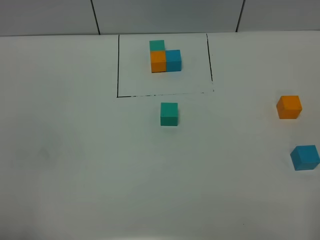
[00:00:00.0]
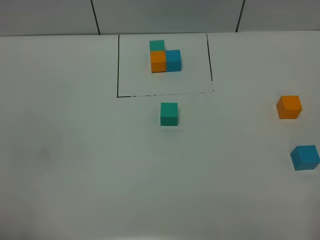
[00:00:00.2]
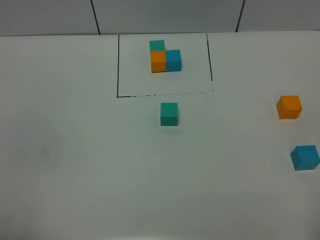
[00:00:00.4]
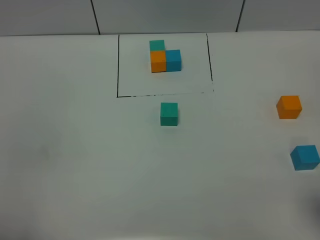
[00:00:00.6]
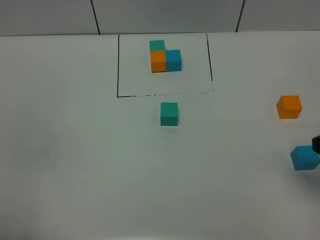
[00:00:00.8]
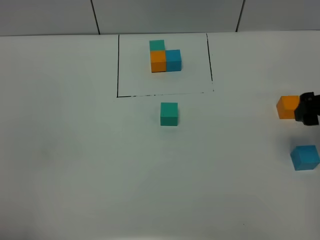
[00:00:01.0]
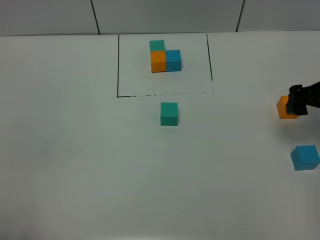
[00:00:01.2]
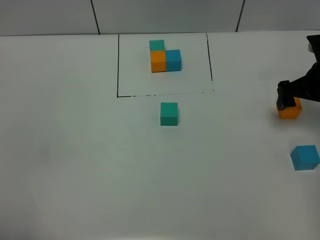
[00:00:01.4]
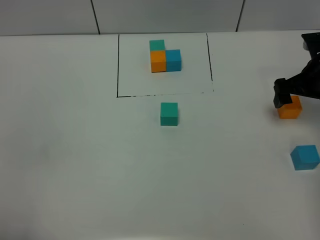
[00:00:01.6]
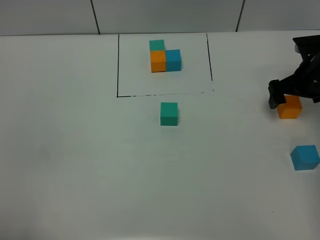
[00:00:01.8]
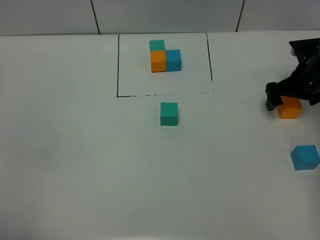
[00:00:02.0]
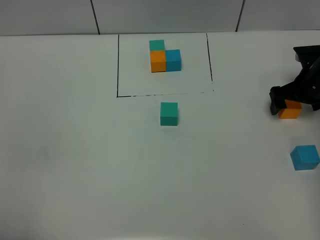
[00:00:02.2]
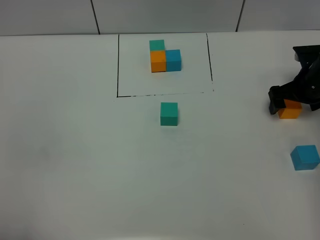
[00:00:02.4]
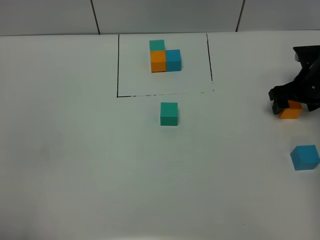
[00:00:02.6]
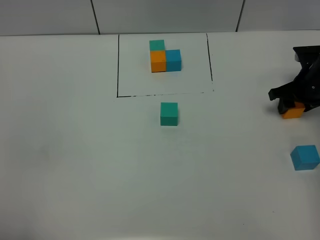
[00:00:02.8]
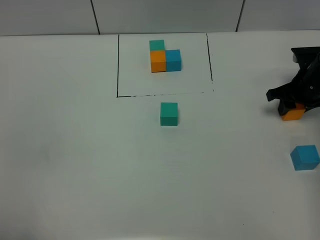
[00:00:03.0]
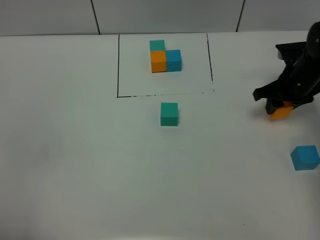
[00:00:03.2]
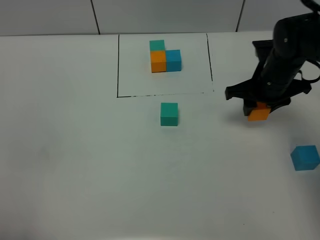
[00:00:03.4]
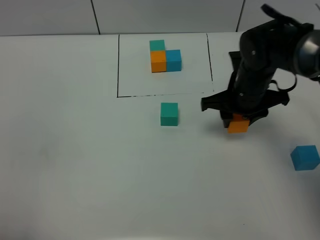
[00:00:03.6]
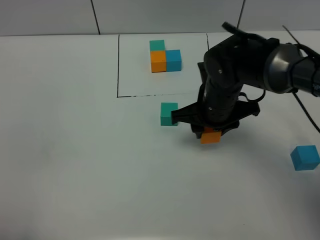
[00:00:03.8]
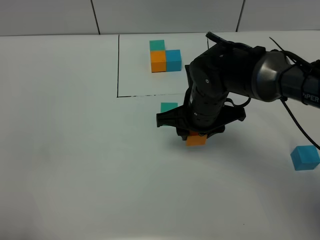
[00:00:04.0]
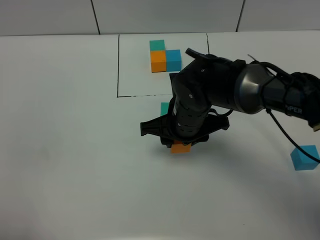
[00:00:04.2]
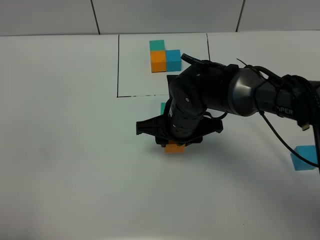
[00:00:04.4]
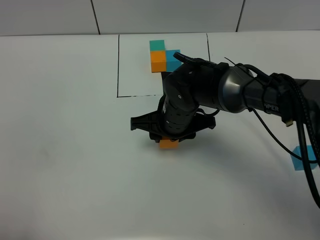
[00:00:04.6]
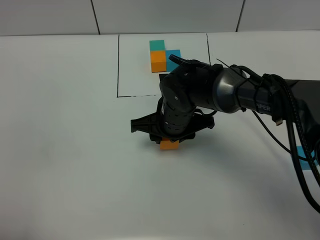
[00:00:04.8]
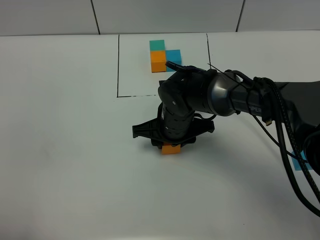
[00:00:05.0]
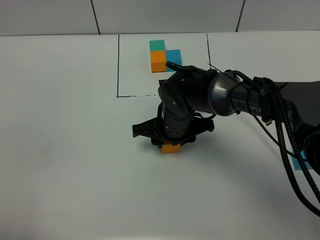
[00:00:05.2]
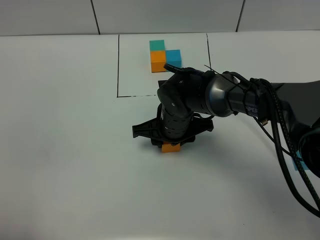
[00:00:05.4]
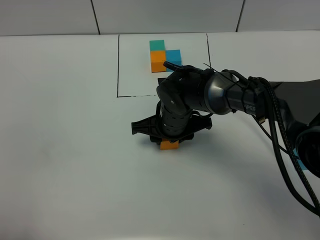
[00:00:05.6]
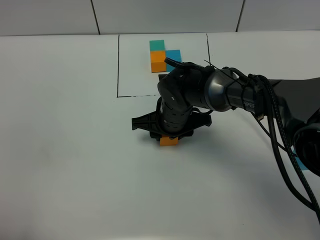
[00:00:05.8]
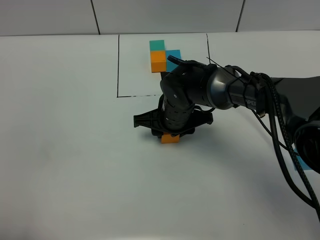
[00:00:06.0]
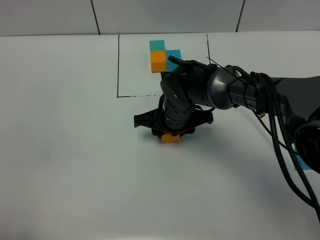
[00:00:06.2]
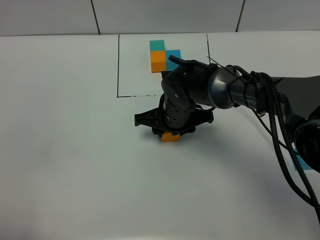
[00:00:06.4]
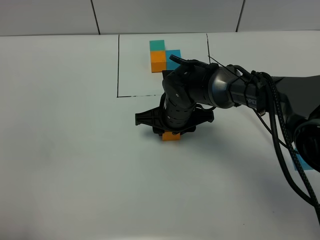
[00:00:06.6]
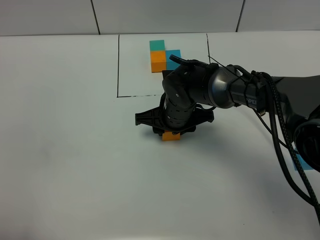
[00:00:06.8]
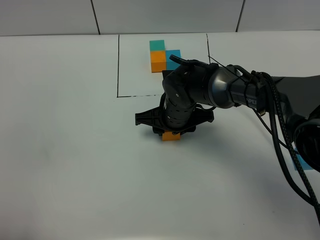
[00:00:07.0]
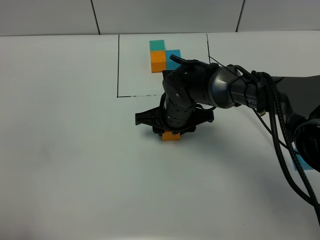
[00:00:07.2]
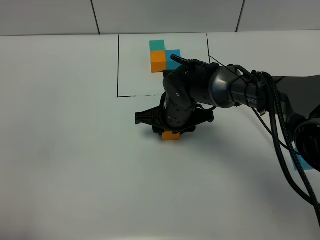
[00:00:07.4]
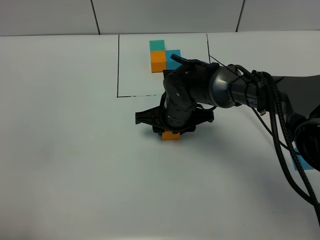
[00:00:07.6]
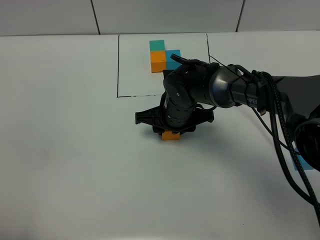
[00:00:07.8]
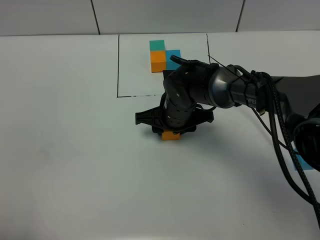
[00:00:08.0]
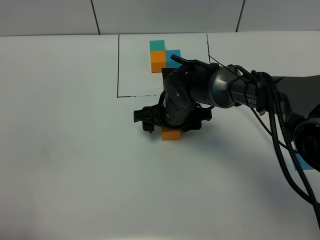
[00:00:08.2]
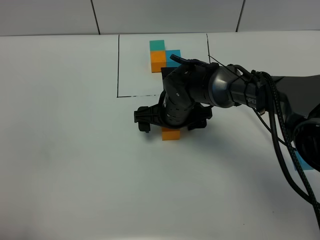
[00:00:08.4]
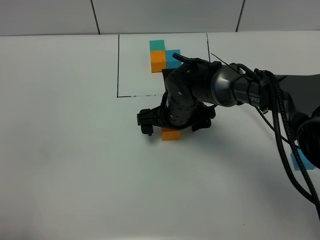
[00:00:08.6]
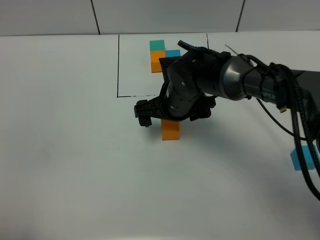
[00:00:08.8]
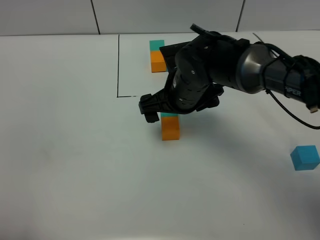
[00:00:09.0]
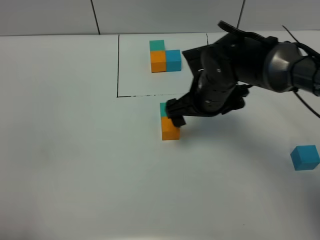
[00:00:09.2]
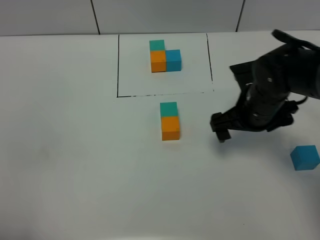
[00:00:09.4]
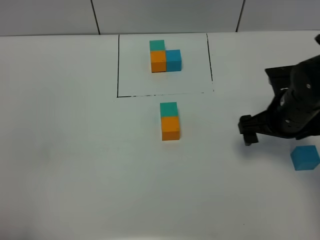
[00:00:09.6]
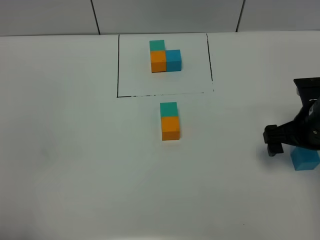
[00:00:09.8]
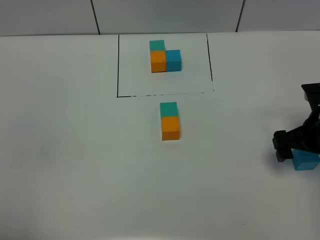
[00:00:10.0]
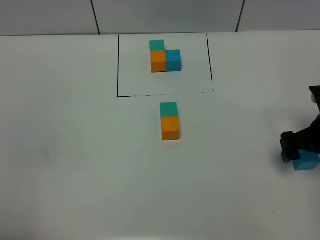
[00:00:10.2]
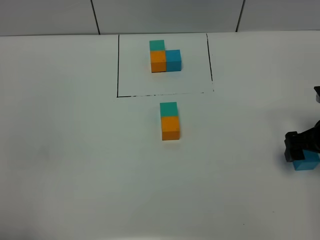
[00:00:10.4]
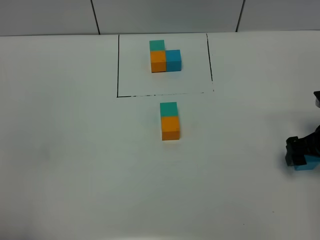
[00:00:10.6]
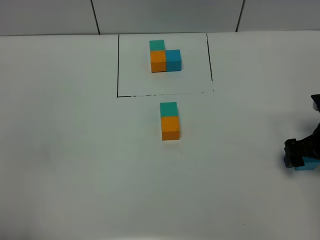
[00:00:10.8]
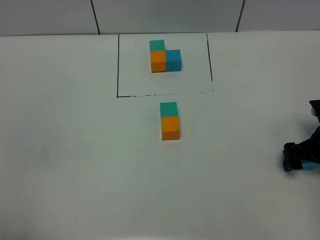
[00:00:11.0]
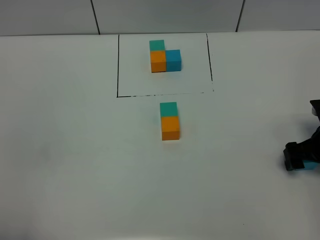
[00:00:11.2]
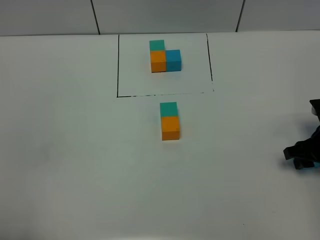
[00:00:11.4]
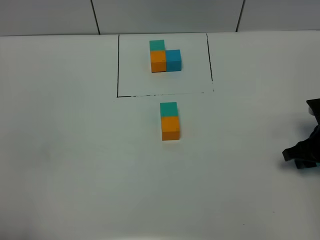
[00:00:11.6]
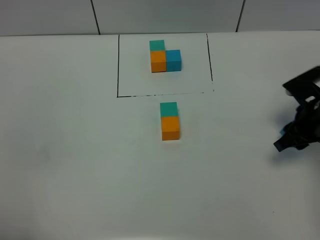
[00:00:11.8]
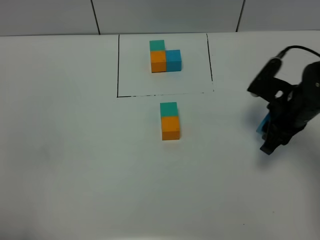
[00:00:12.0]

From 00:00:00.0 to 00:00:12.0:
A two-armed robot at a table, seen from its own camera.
Task of the whole recording: According to the building block template in front, assemble the scattered blocks together.
Step, from 00:00:00.0 to 00:00:08.0: Put the orange build block on the behind of the green build block.
From 00:00:00.0 to 00:00:01.6: The right gripper moves forward, roughly 40 cm.
From 00:00:01.6 to 00:00:03.0: The right gripper changes place by about 5 cm, and closes its fingers.
From 00:00:03.0 to 00:00:04.4: The right gripper shifts roughly 25 cm to the left.
From 00:00:04.4 to 00:00:06.0: The right gripper moves about 5 cm.
From 00:00:06.0 to 00:00:07.6: Both grippers stay put.
From 00:00:07.6 to 00:00:09.0: The right gripper goes roughly 5 cm upward, and opens.
From 00:00:09.0 to 00:00:10.4: The right gripper is displaced to the right by about 25 cm.
From 00:00:10.4 to 00:00:12.0: The right gripper is displaced to the left by approximately 10 cm, and closes up.

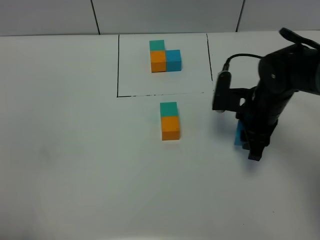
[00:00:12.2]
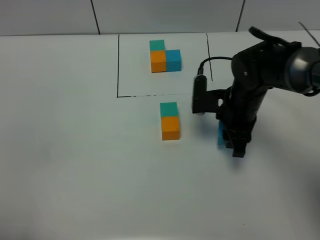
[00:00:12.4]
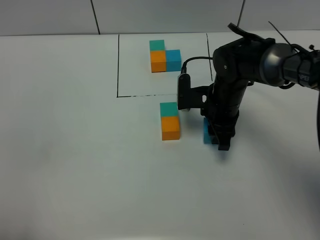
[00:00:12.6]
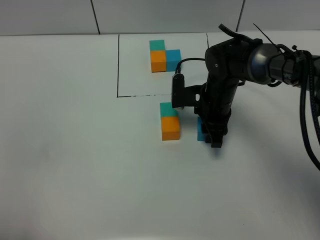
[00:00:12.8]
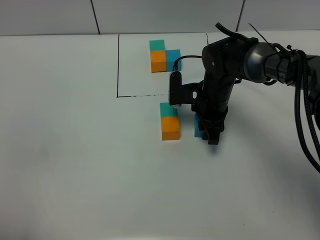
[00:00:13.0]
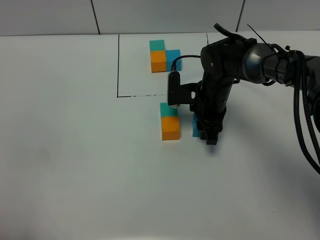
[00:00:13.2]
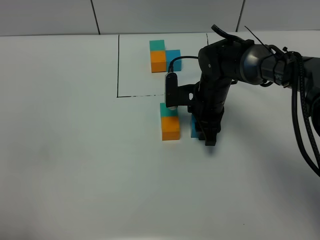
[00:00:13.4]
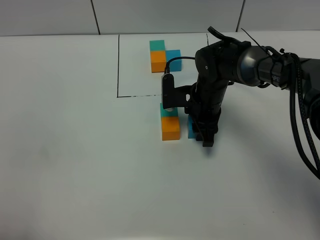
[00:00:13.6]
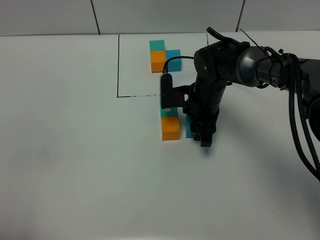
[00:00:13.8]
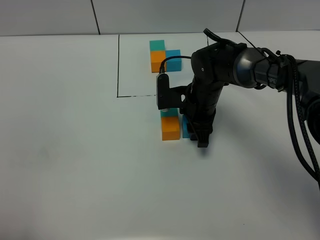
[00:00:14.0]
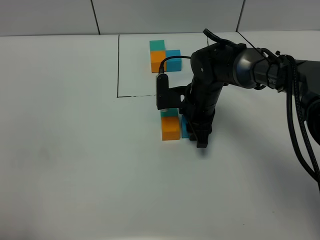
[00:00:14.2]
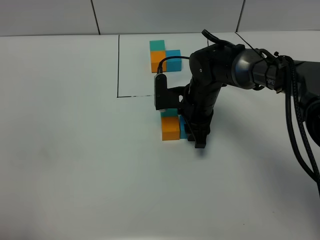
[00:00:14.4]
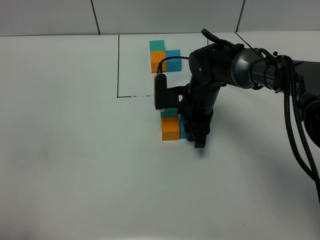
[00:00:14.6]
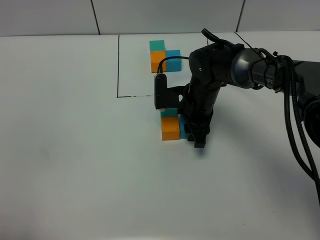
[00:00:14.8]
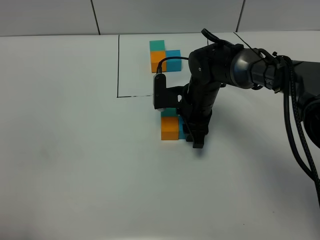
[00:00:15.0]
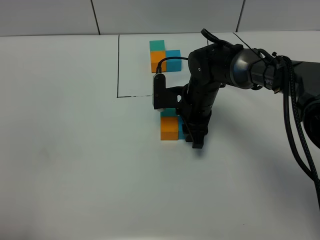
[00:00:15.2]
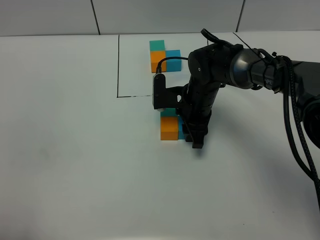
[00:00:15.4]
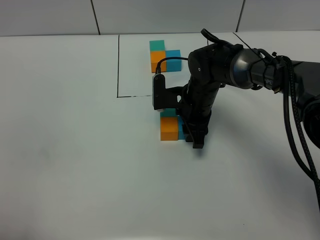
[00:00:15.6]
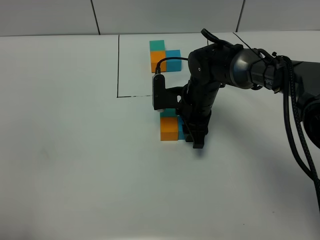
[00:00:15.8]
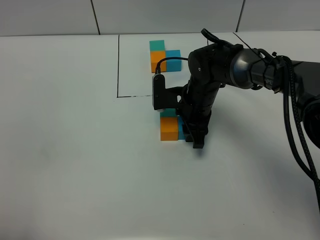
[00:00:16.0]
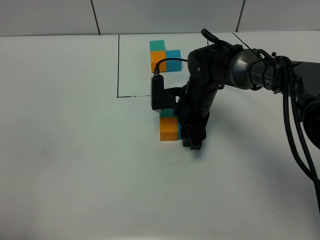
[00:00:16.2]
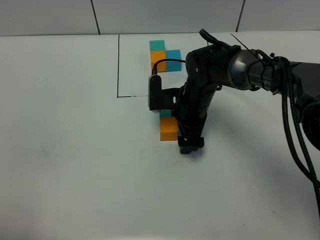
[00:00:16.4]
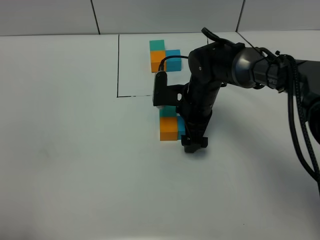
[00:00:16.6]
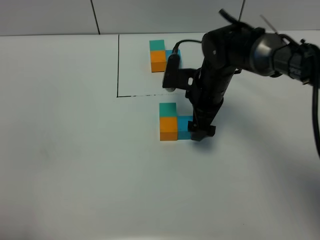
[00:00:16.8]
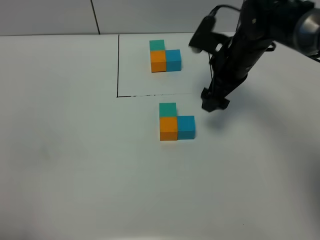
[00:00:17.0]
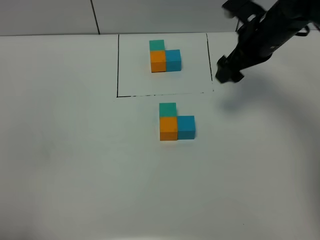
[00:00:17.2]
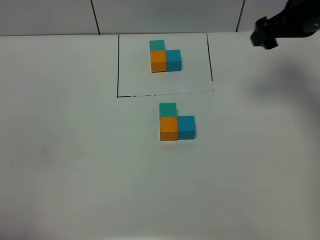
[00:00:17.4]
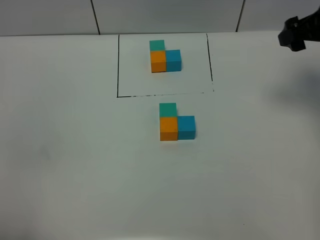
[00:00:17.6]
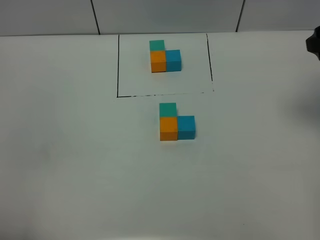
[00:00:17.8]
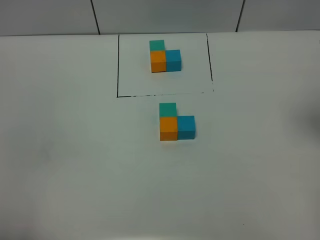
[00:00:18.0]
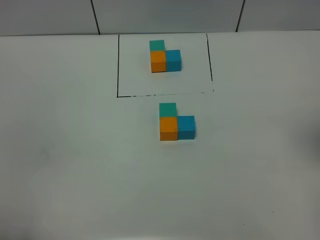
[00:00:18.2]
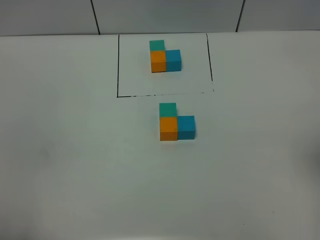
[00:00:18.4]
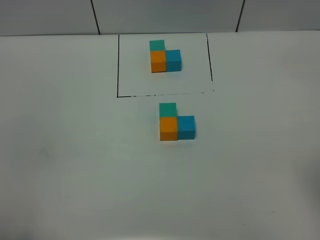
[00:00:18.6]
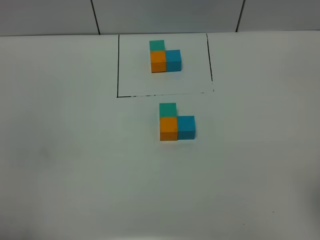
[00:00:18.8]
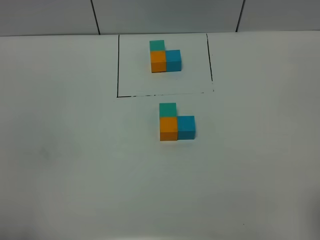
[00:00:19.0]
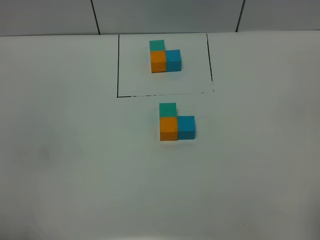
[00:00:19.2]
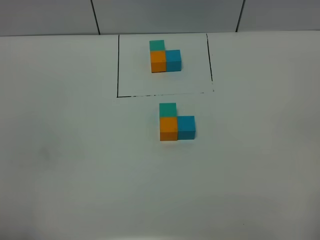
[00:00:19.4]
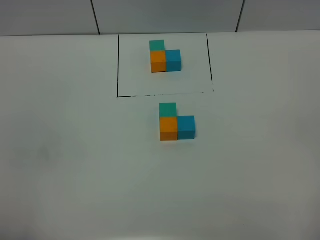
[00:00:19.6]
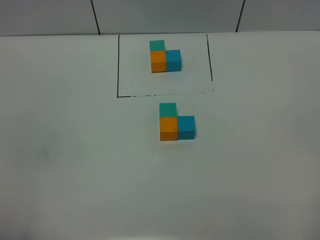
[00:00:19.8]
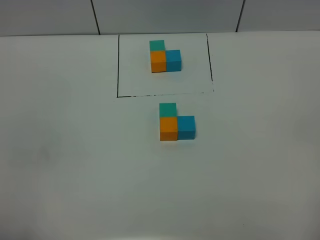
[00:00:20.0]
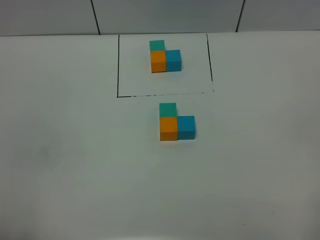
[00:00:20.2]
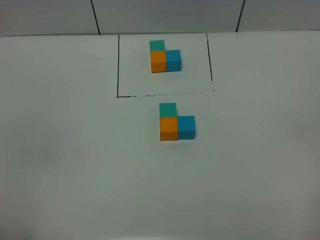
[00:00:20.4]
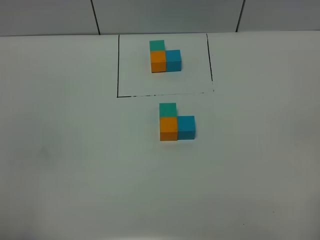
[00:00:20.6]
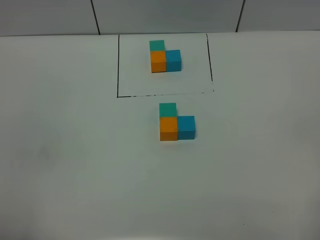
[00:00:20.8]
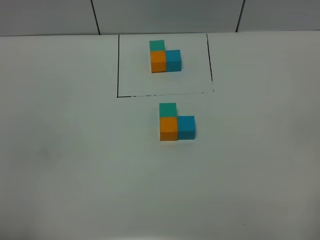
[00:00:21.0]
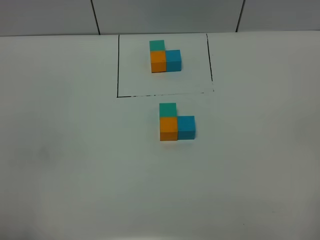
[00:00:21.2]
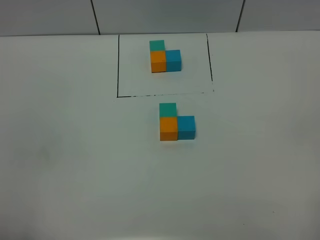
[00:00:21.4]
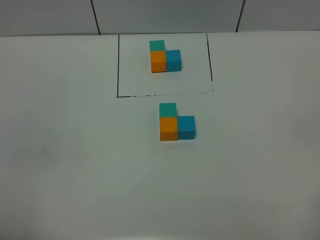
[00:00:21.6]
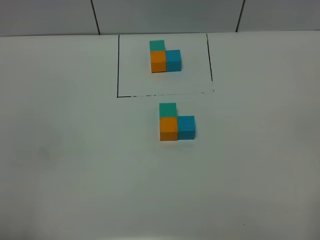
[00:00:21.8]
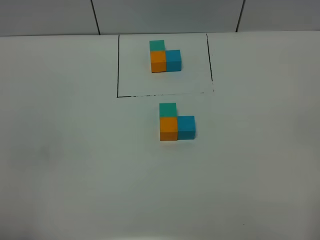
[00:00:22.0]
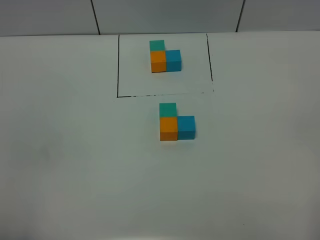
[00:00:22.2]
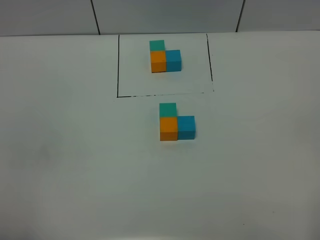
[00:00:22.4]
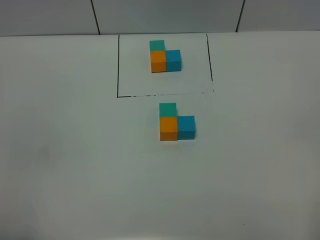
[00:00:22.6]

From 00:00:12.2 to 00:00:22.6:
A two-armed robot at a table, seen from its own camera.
Task of the whole recording: According to the building block template in front, assemble the scattered blocks together.
Step, from 00:00:12.2 to 00:00:16.4: Put the blue build block on the right of the orange build block.
From 00:00:12.2 to 00:00:13.6: The right gripper travels to the left and forward by roughly 10 cm.
From 00:00:13.6 to 00:00:15.2: The grippers move only a little.
From 00:00:15.2 to 00:00:16.6: The right gripper opens.
From 00:00:16.6 to 00:00:18.2: The right gripper travels to the right, upward and backward by approximately 35 cm.
From 00:00:19.6 to 00:00:21.2: Neither gripper changes place.
